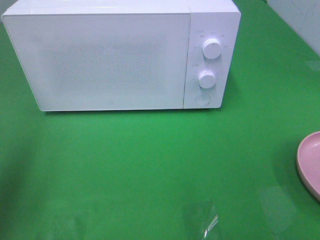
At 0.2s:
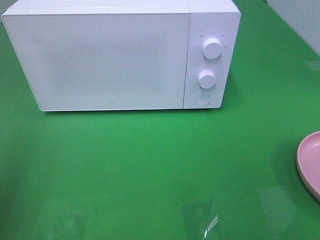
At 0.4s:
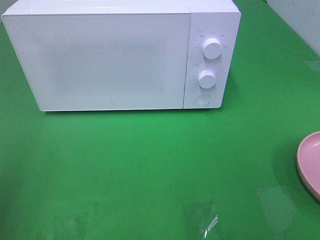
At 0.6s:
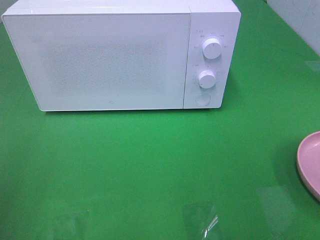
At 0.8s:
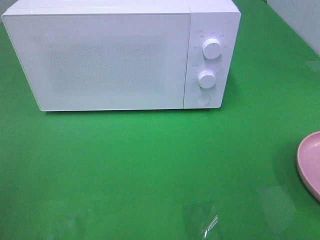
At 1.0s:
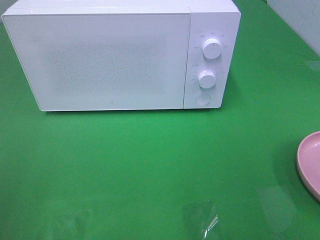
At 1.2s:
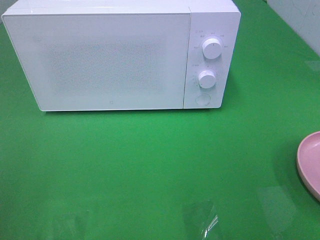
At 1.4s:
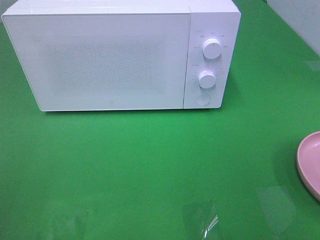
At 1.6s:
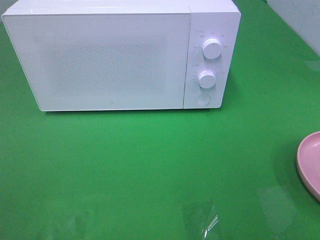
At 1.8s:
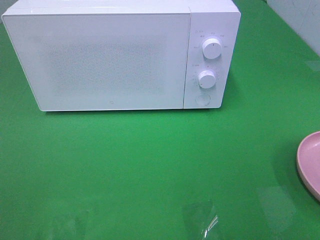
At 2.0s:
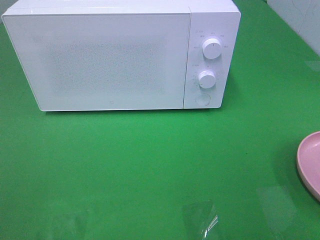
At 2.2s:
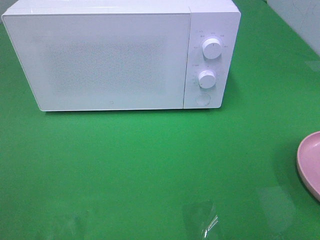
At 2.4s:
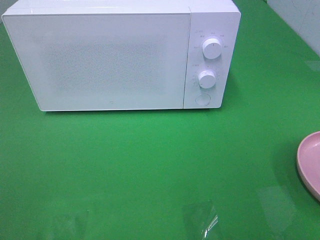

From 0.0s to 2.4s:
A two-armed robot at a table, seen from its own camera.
Task of the whole recording: Heat the burger.
From 0.0s to 1.2s: The left gripper moves backward, roughly 15 cm.

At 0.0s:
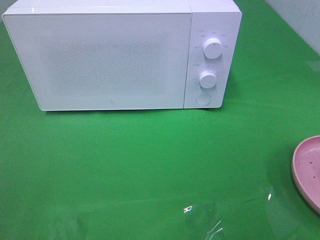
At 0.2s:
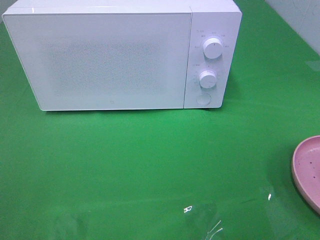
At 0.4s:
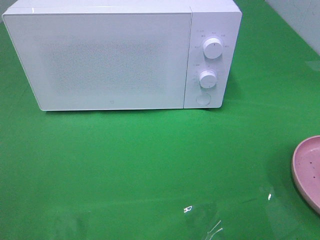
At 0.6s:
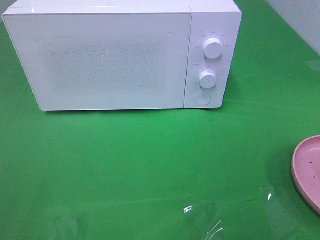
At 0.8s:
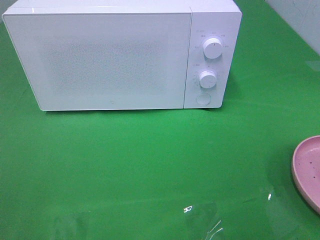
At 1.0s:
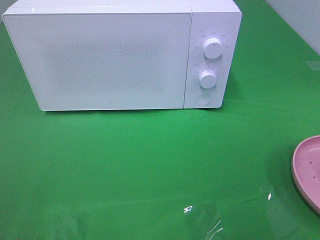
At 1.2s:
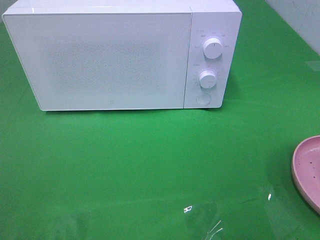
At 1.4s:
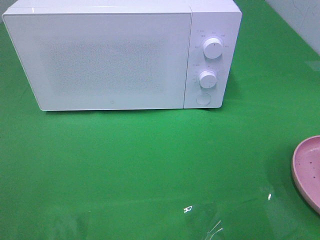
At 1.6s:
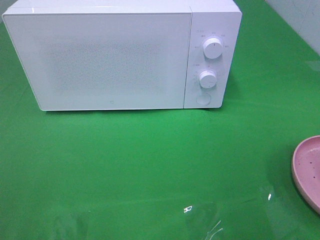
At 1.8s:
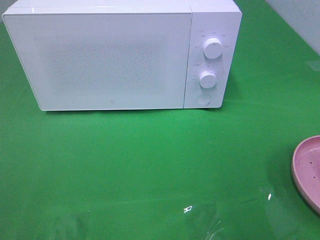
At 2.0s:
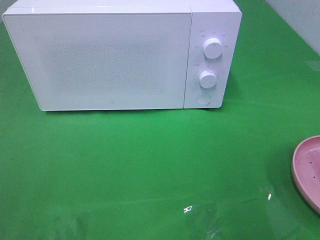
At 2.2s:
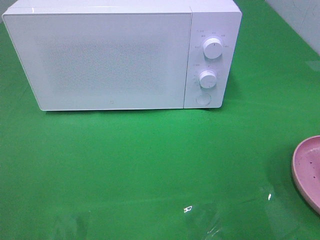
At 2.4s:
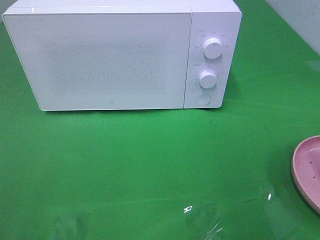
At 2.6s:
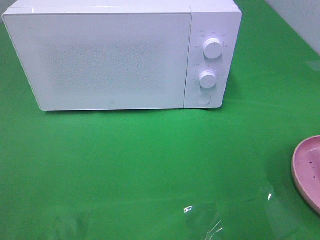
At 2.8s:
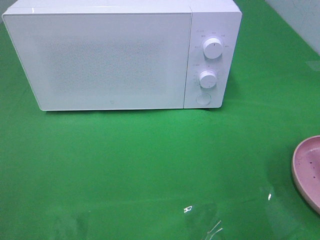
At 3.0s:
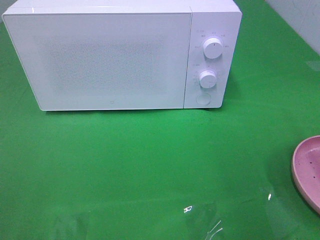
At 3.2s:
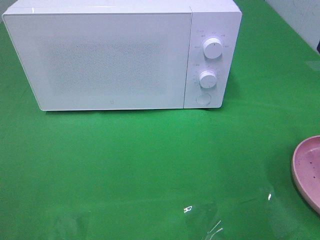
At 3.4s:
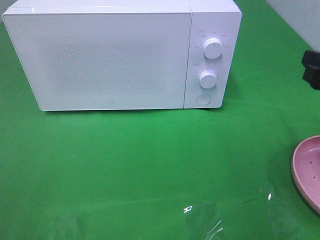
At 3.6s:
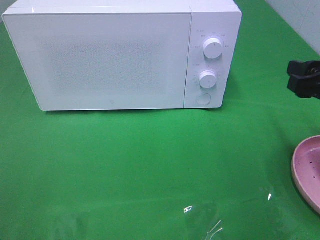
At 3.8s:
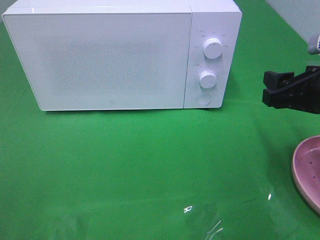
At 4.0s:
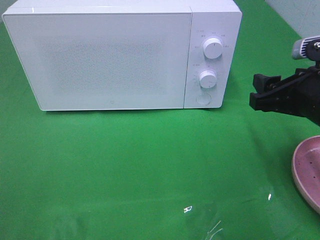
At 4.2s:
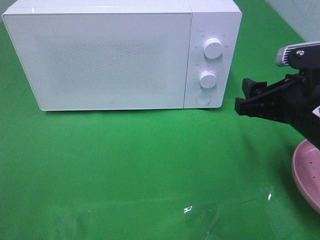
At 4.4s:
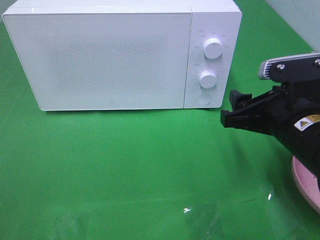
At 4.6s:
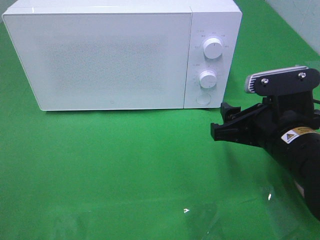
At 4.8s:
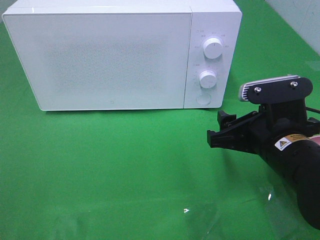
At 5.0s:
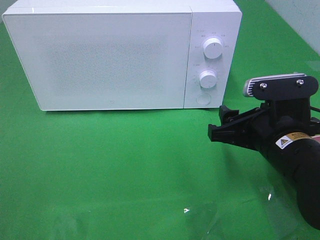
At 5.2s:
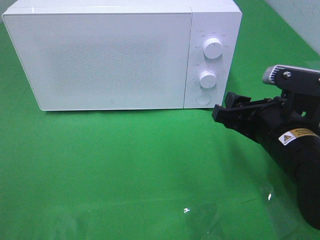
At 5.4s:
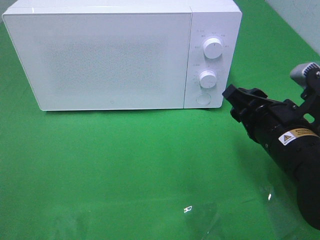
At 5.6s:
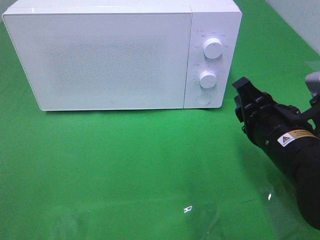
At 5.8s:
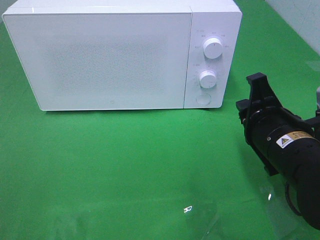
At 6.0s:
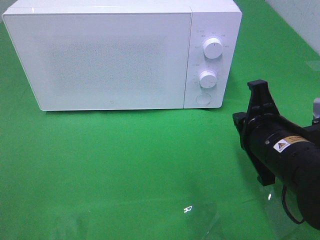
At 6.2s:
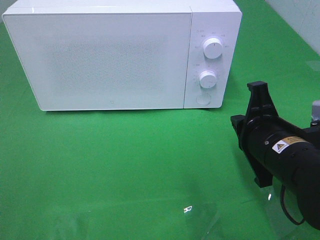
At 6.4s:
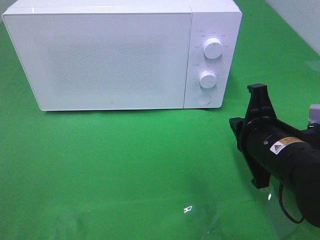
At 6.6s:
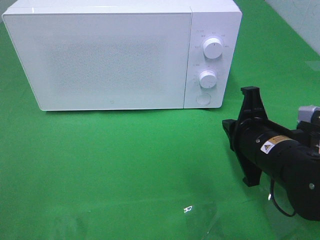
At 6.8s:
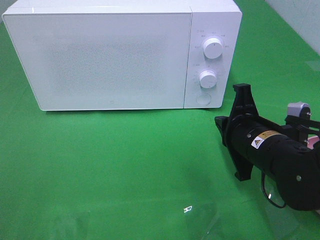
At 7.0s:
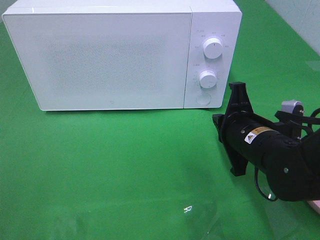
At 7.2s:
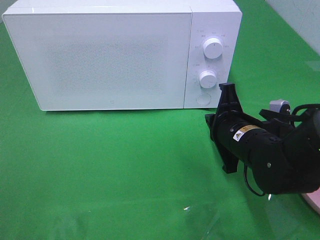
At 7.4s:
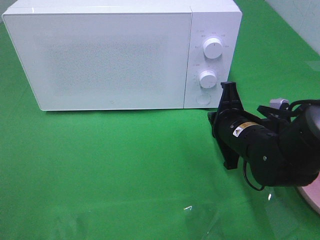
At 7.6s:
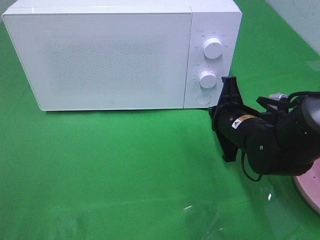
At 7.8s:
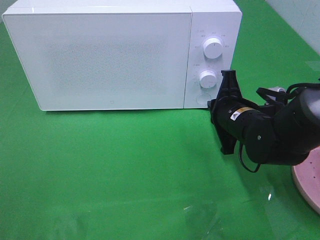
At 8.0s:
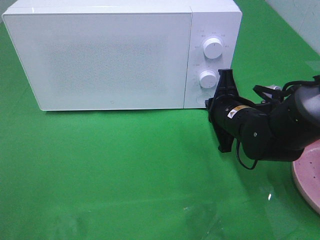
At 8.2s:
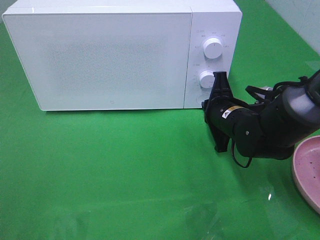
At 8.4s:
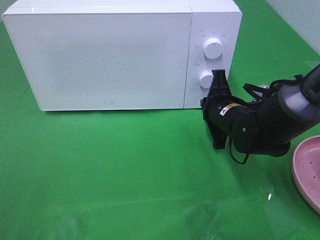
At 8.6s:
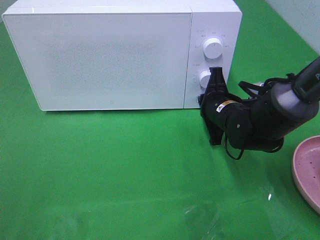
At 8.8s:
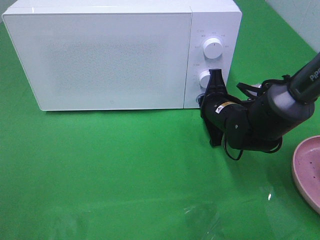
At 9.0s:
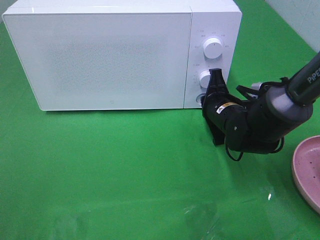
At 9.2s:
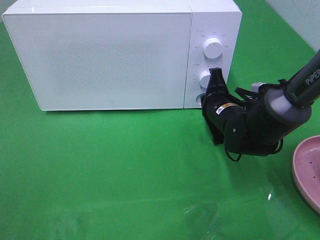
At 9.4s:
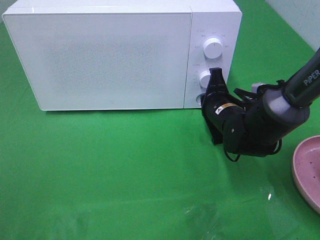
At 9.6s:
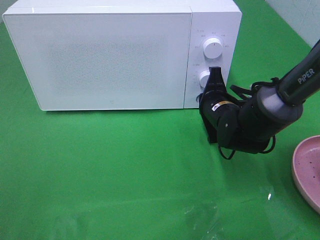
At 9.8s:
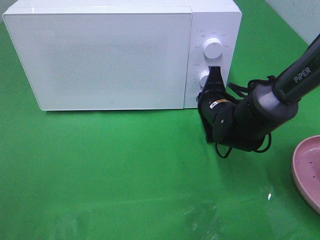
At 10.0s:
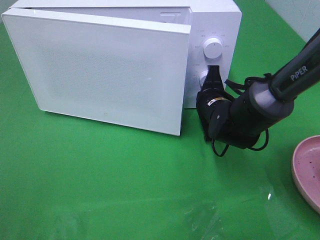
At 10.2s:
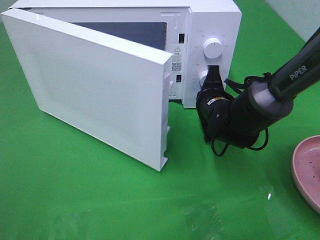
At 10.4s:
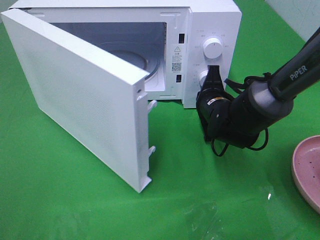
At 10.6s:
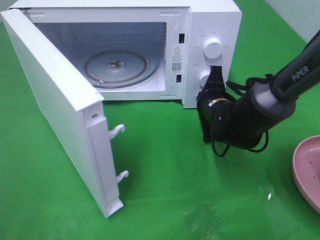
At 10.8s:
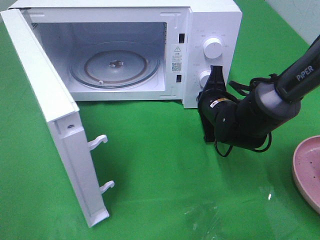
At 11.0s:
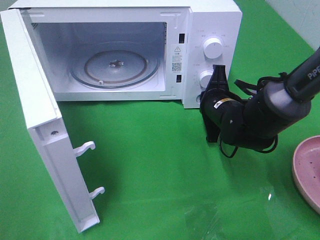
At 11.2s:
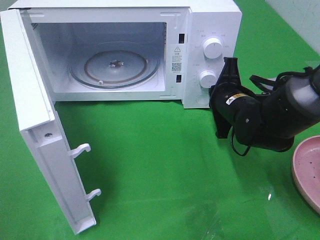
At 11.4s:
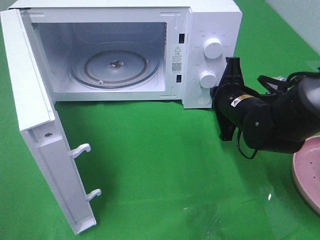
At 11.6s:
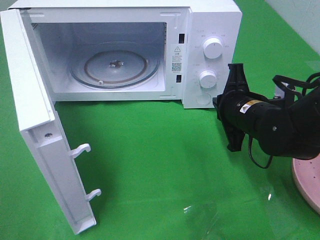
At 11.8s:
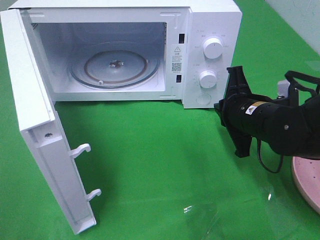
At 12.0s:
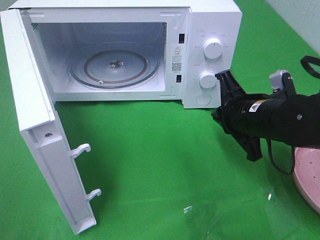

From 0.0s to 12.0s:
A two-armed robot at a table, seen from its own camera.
Task of the whole recording: Heat the burger.
Step, from 0.0s to 11.8s: Right hand: press the switch.
From 3.0s to 4.4s: The right gripper is displaced to the left and downward by roughly 15 cm.
From 4.4s to 6.0s: The right gripper closes up.
From 6.0s to 7.6s: The right gripper heads forward, covering roughly 10 cm.
From 7.6s to 9.0s: The right gripper travels forward by about 5 cm.
From 10.4s to 12.0s: The right gripper heads backward and upward, covering roughly 10 cm.

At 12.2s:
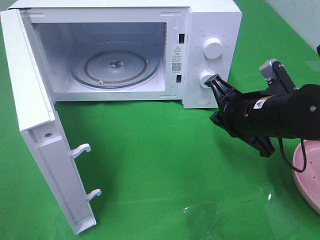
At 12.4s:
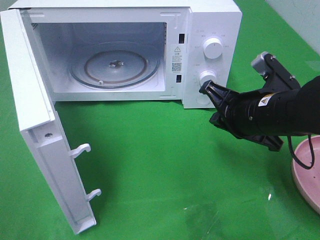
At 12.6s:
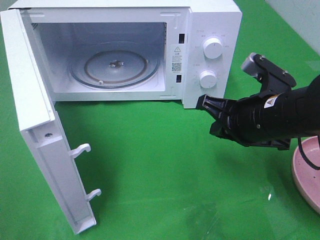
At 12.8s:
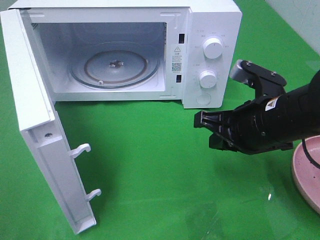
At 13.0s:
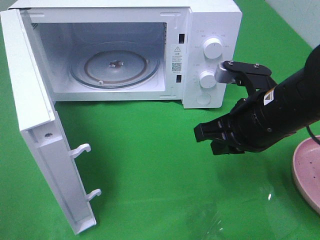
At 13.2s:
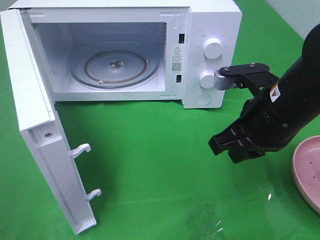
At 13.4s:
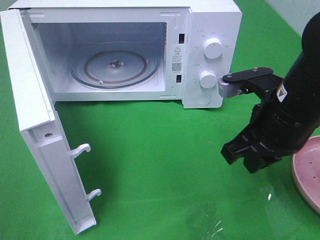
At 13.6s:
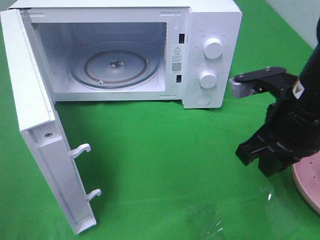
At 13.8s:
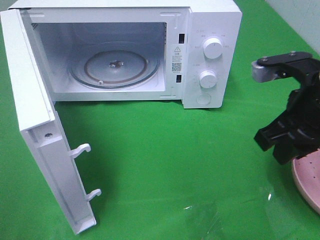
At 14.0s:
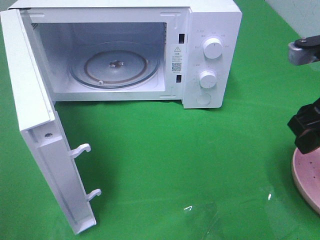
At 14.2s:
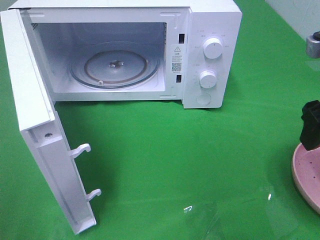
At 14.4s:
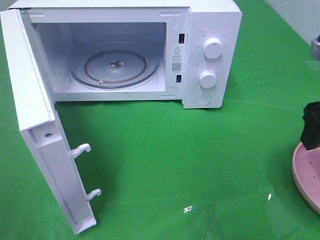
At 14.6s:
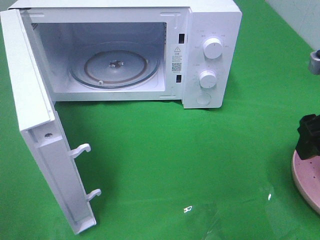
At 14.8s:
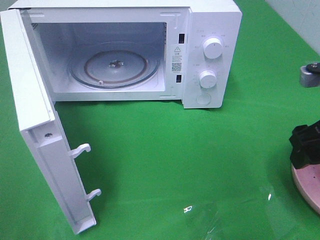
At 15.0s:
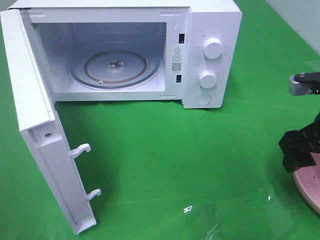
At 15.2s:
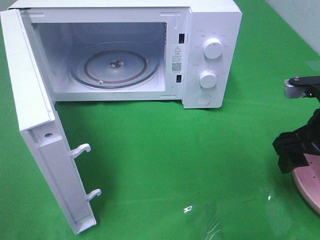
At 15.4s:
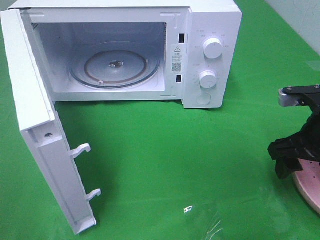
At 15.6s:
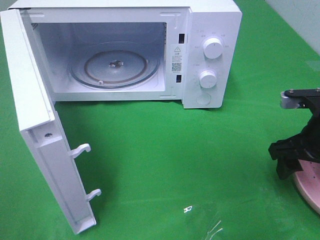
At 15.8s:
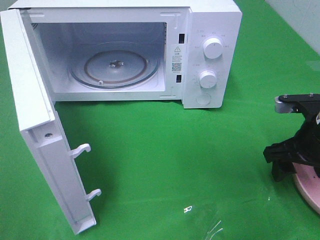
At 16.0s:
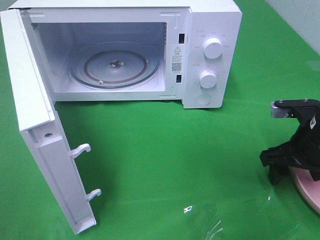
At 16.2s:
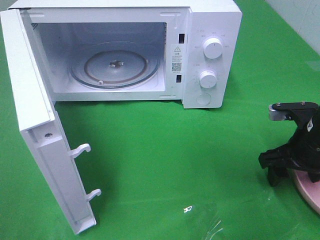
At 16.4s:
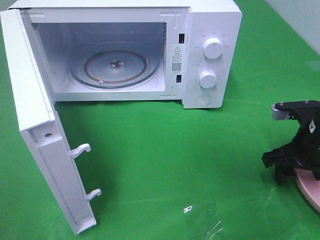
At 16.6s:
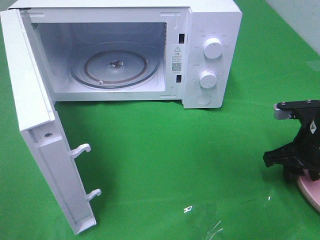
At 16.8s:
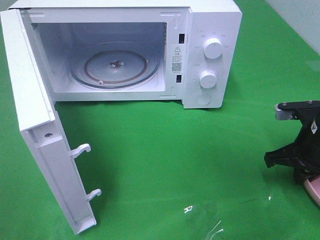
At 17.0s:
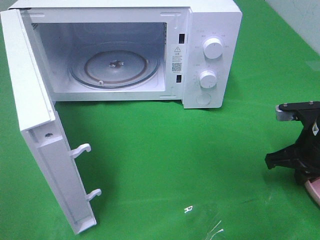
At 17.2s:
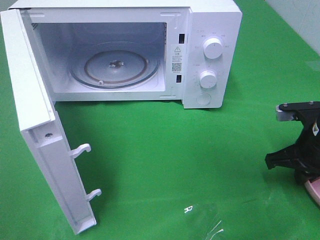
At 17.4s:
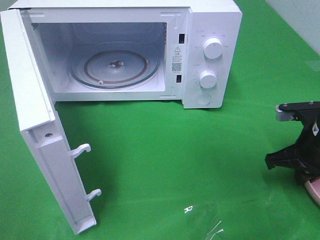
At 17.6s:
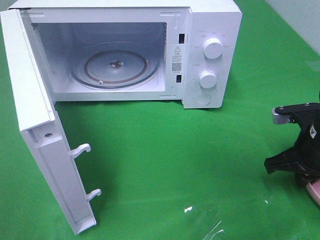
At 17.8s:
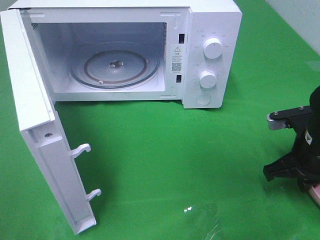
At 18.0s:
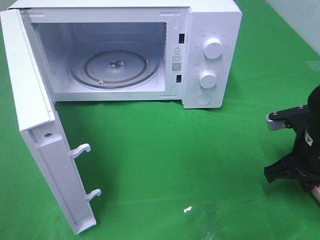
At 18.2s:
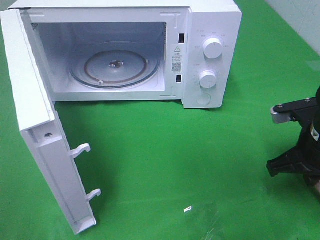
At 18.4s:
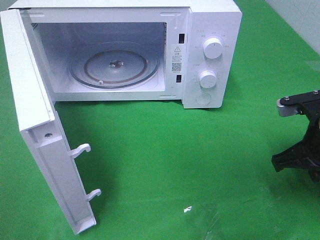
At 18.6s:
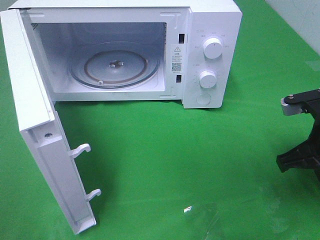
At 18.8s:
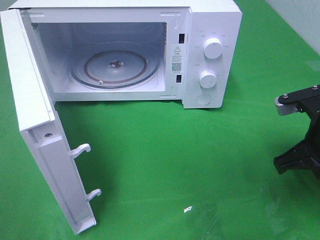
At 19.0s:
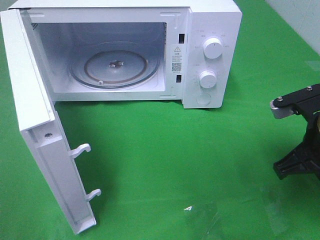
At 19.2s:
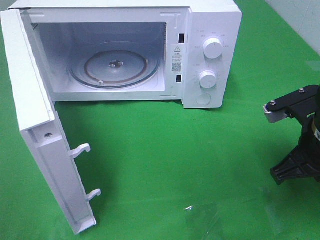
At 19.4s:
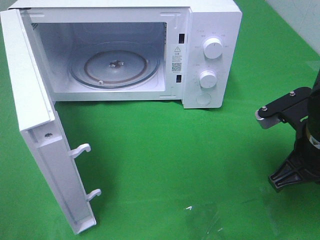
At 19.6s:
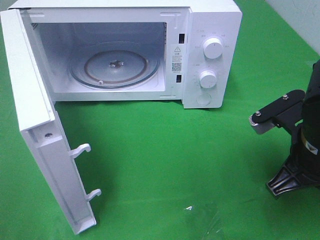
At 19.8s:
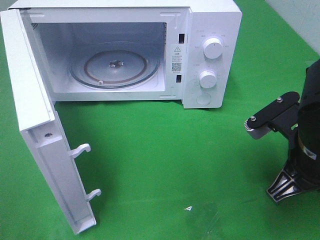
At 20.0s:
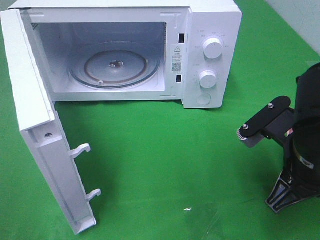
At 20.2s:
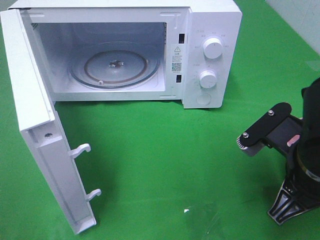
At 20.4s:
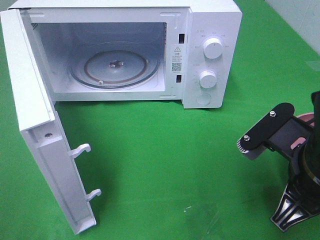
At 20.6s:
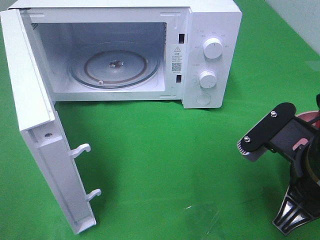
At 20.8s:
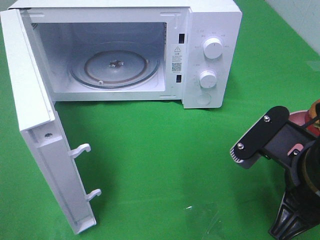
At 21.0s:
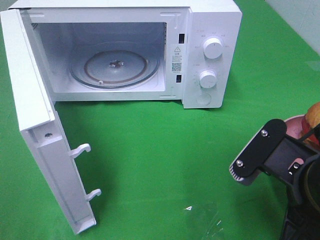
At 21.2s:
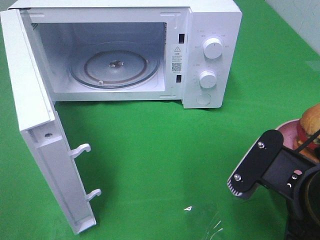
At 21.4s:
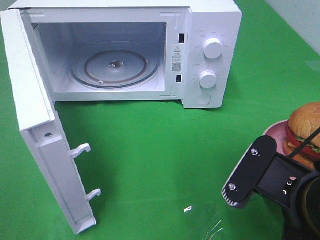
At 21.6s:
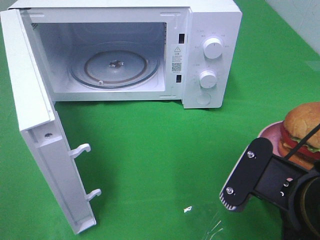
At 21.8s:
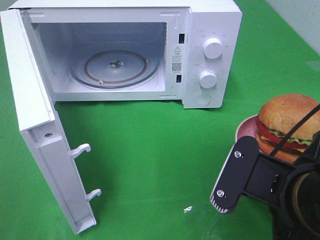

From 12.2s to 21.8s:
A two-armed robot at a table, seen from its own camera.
Task of the whole recording: Heat the burger.
Step, from 12.2s to 17.4s: Right hand: grab the plate with the hamburger.
From 12.2s to 13.8s: The right gripper moves upward, about 10 cm, and opens its fingers.
From 13.8s to 15.4s: The right gripper travels downward by approximately 10 cm, and opens its fingers.
From 15.4s to 17.0s: The right gripper closes its fingers.
From 17.0s to 18.6s: The right gripper shifts by some 5 cm.
From 18.6s to 20.2s: The right gripper is displaced to the left and backward by approximately 10 cm.
From 20.2s to 21.8s: The right gripper shifts about 5 cm backward.
